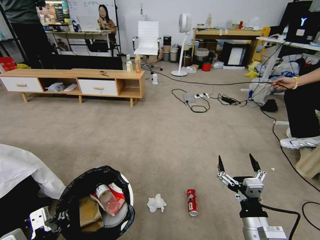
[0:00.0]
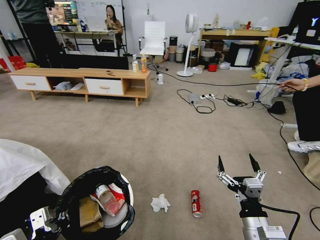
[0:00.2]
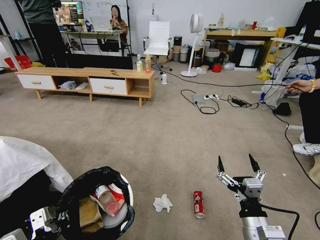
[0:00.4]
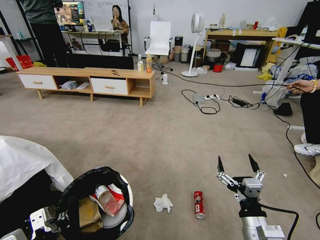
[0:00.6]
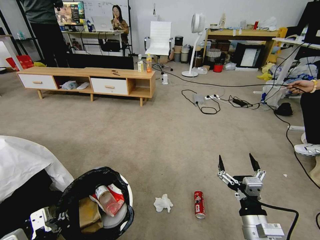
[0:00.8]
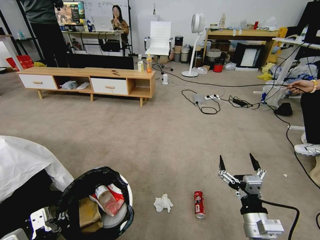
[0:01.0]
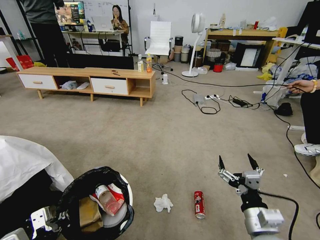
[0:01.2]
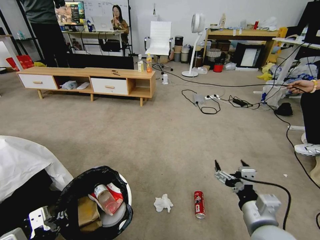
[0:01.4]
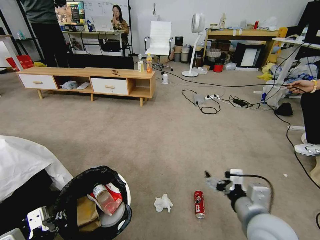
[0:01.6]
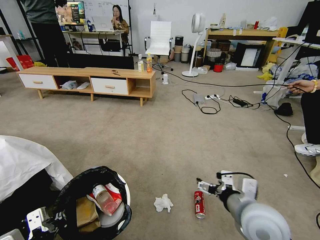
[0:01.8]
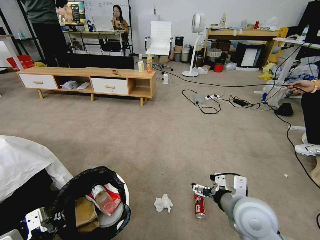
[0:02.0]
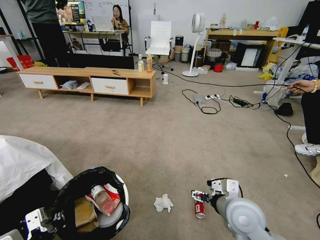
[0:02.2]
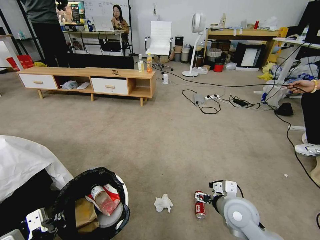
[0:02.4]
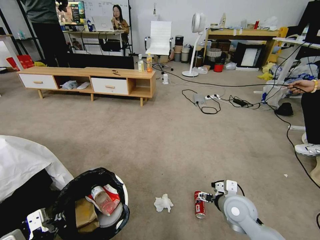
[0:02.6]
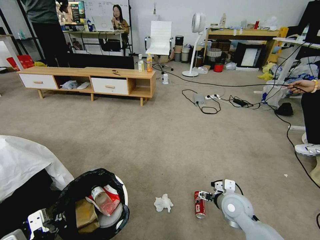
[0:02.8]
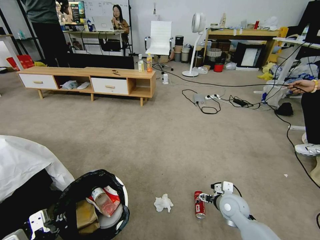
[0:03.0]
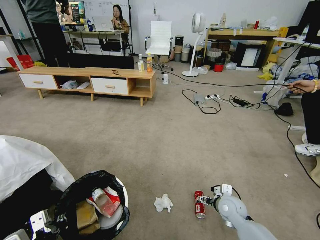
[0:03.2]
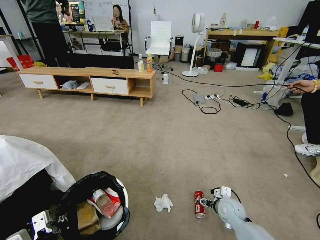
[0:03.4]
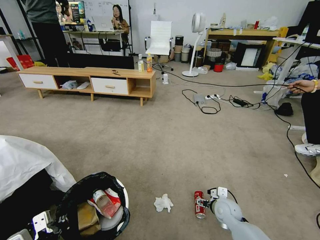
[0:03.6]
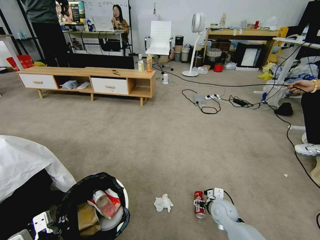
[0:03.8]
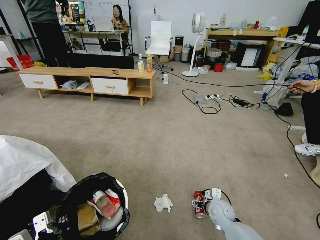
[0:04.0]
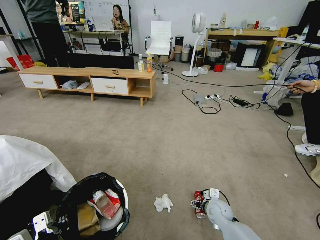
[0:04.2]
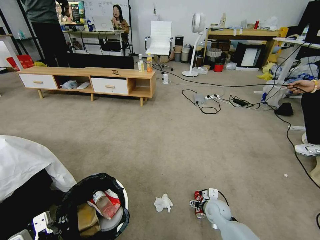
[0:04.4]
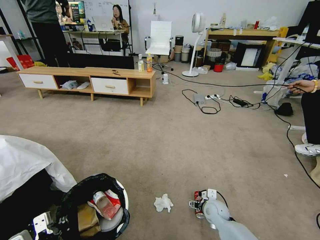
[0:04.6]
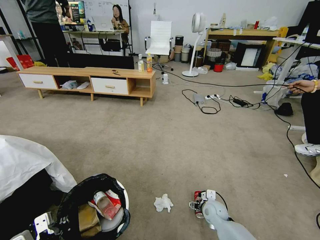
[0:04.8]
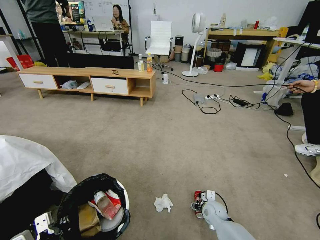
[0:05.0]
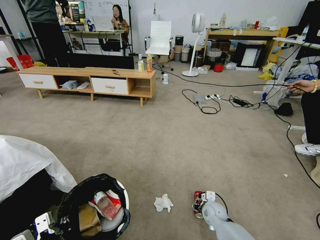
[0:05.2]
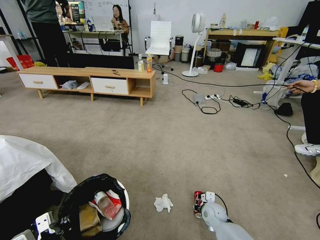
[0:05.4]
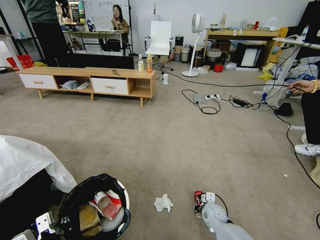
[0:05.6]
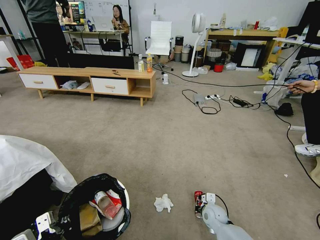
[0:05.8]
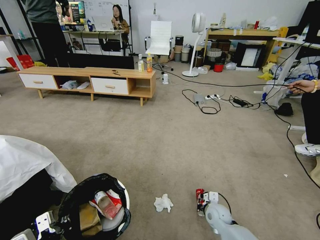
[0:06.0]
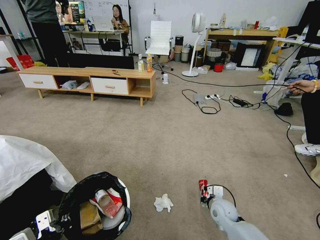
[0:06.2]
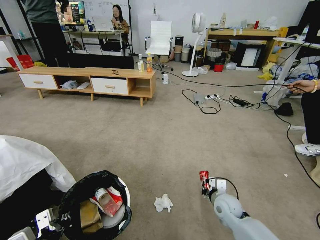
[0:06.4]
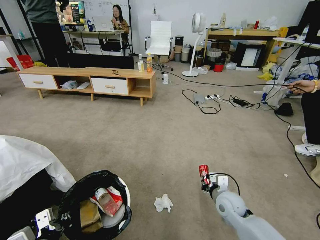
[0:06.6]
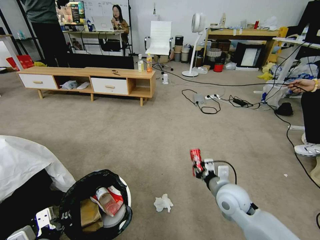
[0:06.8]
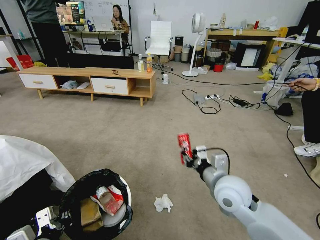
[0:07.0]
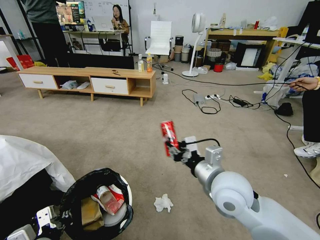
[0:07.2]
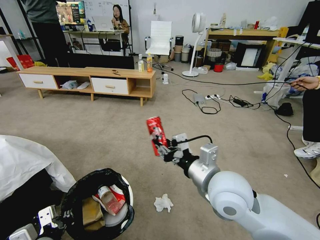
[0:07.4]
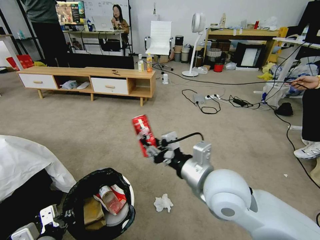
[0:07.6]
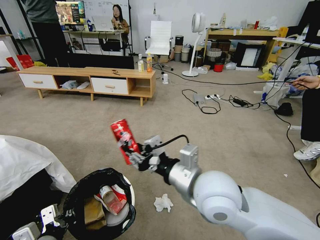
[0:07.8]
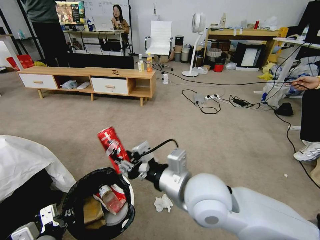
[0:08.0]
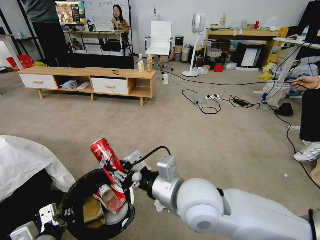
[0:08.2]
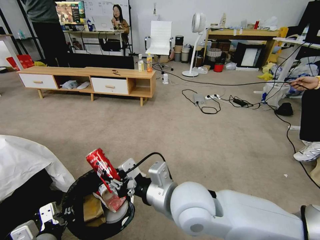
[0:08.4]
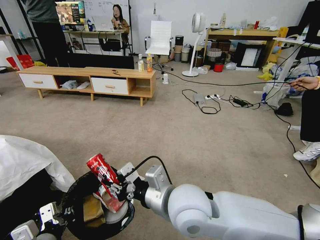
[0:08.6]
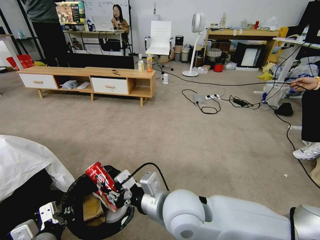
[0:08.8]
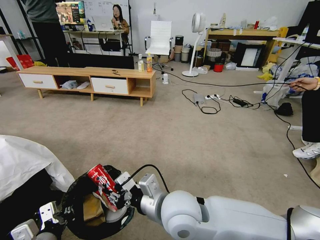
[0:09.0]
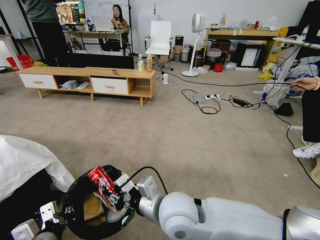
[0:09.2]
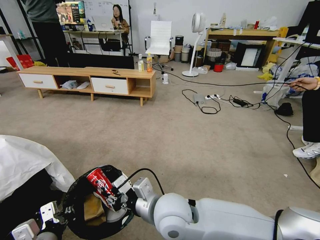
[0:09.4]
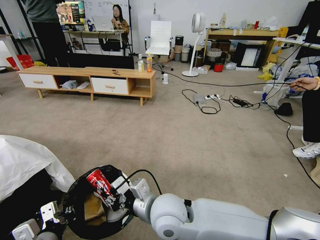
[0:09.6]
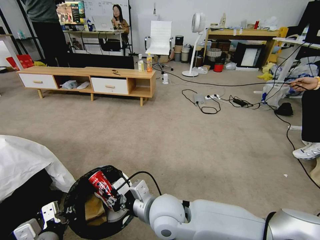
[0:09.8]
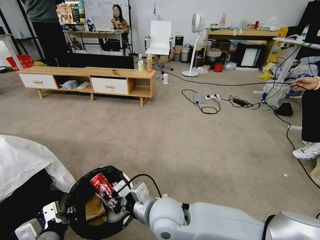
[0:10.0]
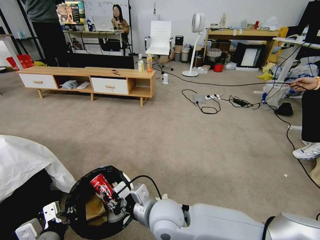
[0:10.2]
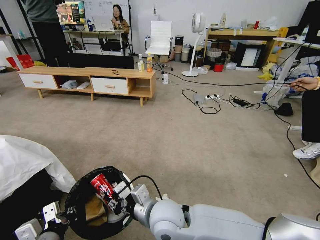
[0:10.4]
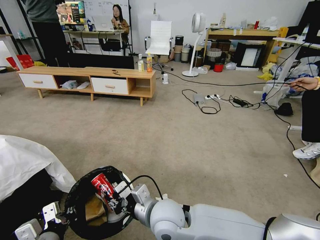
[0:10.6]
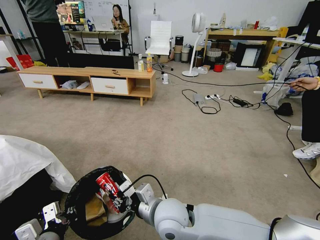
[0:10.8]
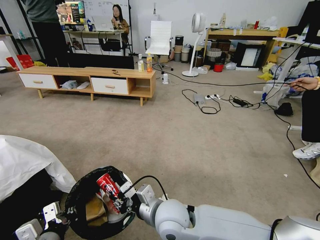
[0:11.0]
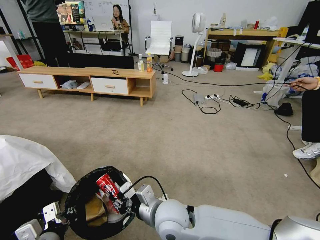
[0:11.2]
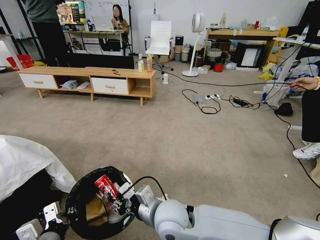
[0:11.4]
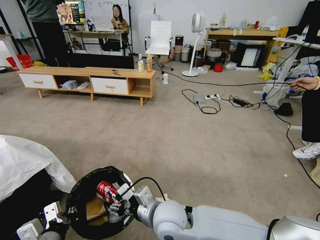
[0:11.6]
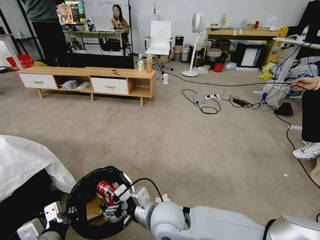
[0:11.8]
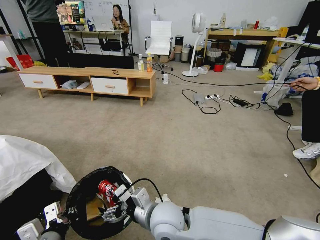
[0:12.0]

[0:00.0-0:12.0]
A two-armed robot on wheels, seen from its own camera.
Task of the whole recording: Pick up the trash bin and place the garbage on the floor into it.
0:00.0 to 0:01.6: The right gripper travels upward by about 10 cm.
0:01.6 to 0:03.0: The right gripper heads downward and forward, covering roughly 20 cm.
0:03.0 to 0:04.4: The right gripper travels downward by approximately 5 cm.
0:04.4 to 0:06.0: The right gripper closes up.
0:06.0 to 0:07.6: The right gripper shifts roughly 35 cm upward.
0:07.6 to 0:09.0: The right gripper travels to the left and downward by approximately 10 cm.
0:09.0 to 0:10.4: The right gripper is displaced downward by about 10 cm.
0:10.4 to 0:12.0: The right gripper opens its fingers.

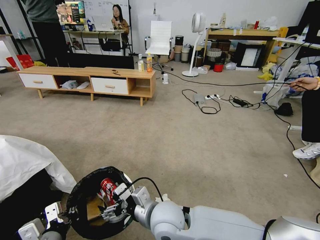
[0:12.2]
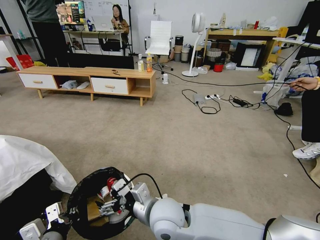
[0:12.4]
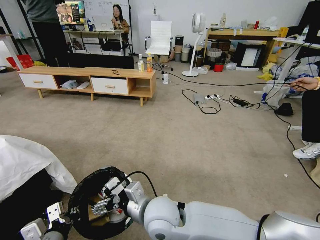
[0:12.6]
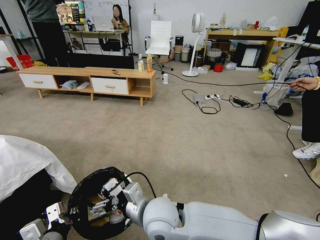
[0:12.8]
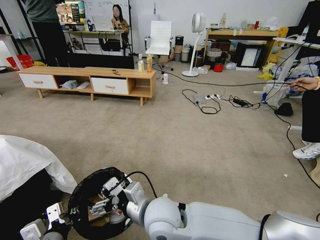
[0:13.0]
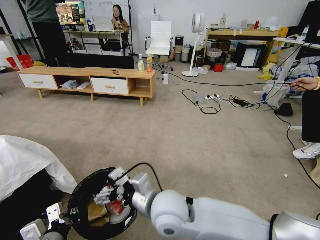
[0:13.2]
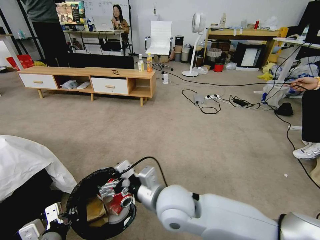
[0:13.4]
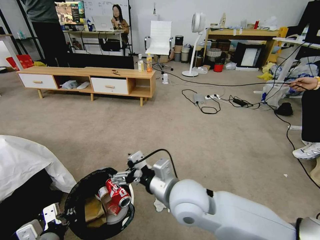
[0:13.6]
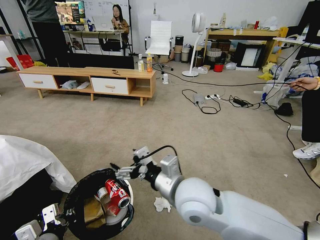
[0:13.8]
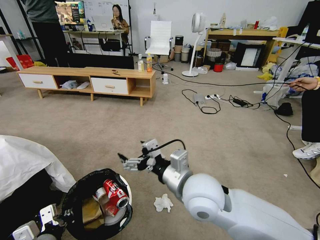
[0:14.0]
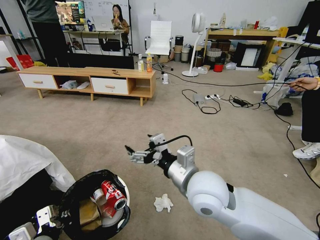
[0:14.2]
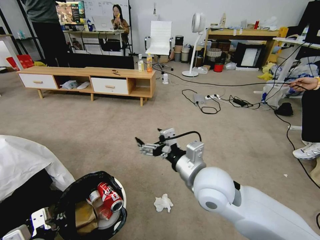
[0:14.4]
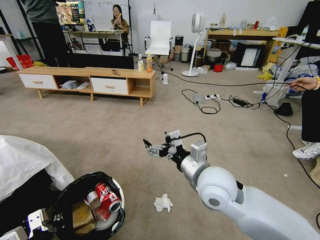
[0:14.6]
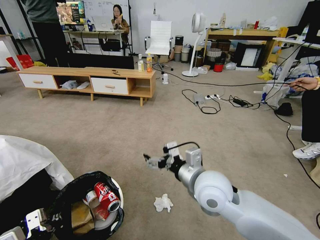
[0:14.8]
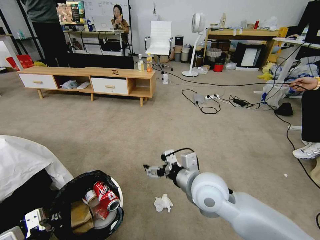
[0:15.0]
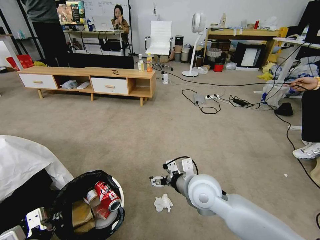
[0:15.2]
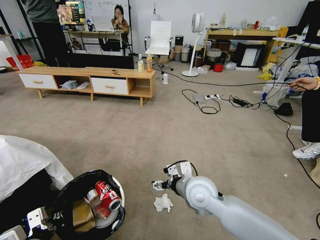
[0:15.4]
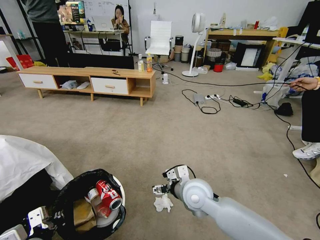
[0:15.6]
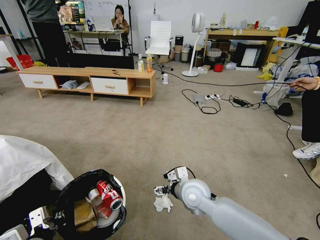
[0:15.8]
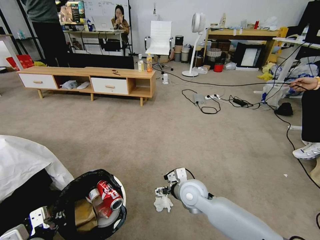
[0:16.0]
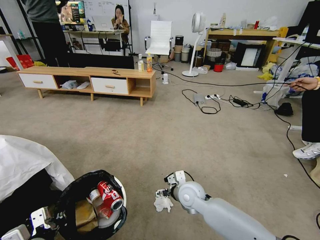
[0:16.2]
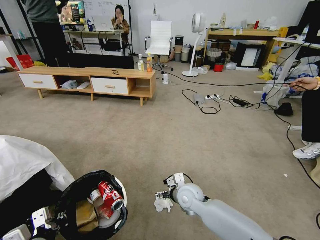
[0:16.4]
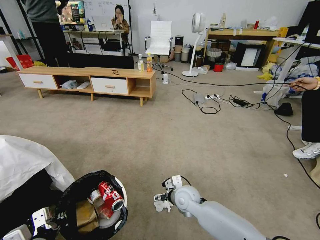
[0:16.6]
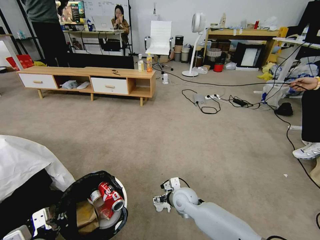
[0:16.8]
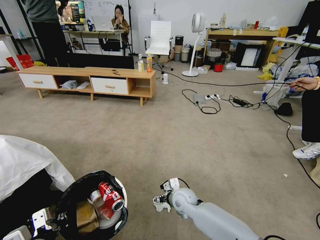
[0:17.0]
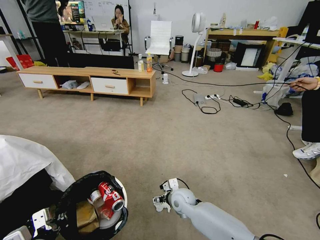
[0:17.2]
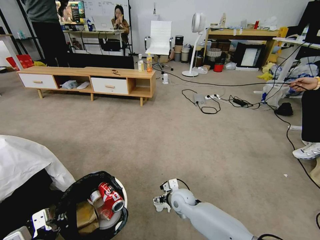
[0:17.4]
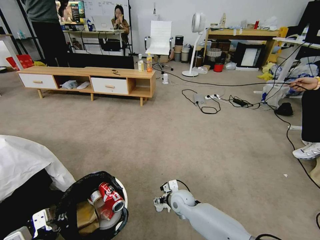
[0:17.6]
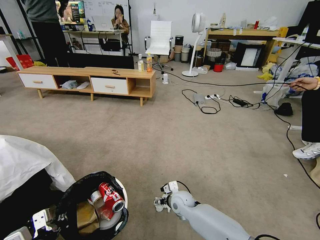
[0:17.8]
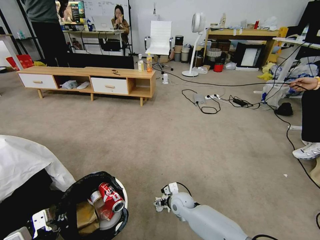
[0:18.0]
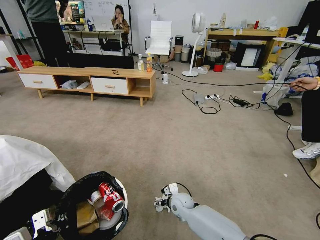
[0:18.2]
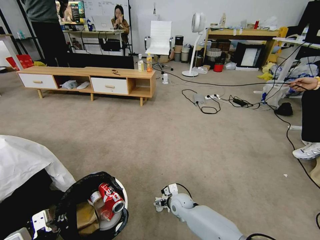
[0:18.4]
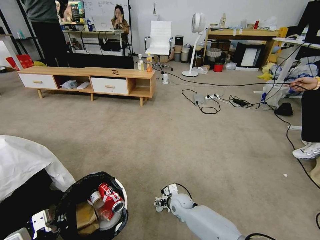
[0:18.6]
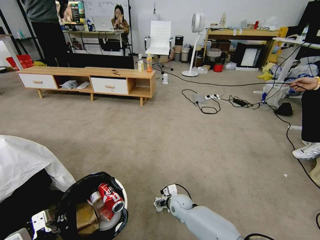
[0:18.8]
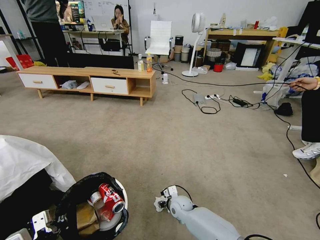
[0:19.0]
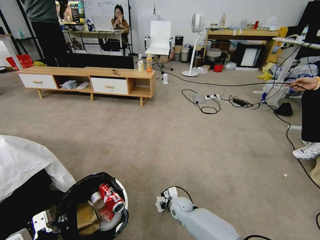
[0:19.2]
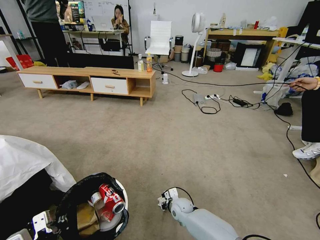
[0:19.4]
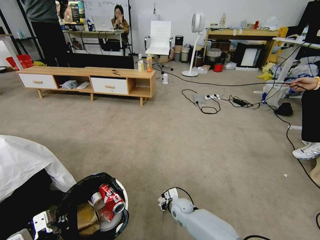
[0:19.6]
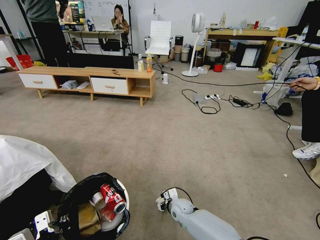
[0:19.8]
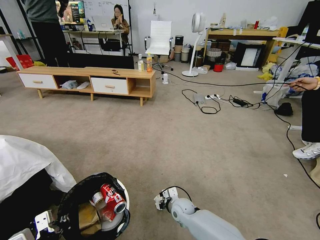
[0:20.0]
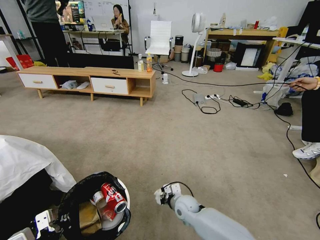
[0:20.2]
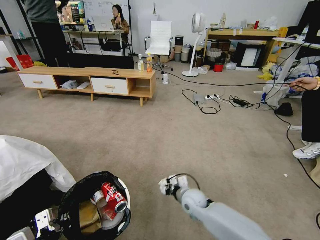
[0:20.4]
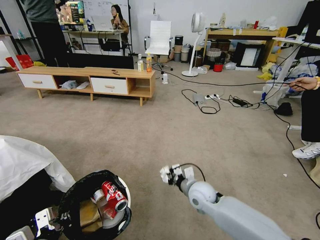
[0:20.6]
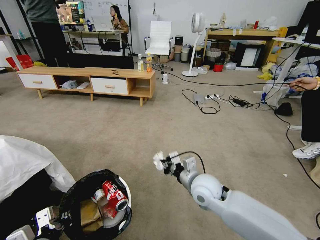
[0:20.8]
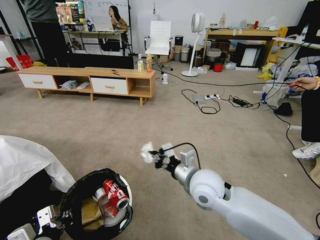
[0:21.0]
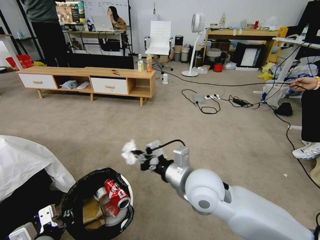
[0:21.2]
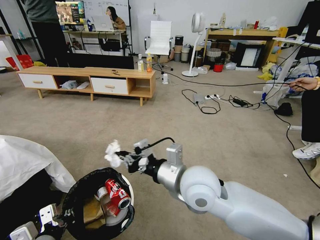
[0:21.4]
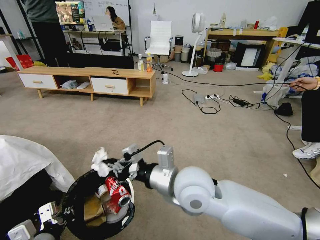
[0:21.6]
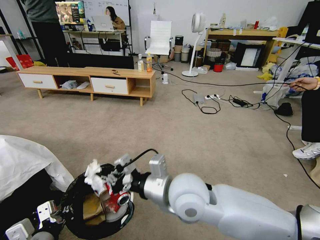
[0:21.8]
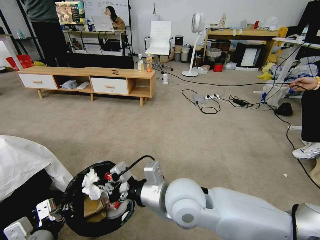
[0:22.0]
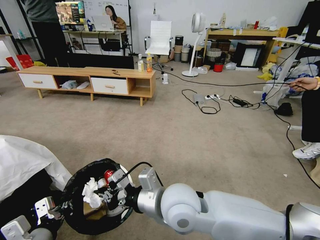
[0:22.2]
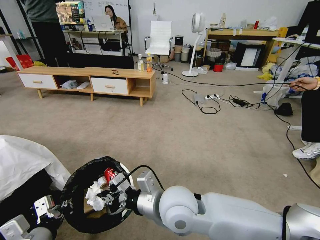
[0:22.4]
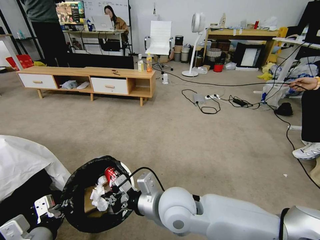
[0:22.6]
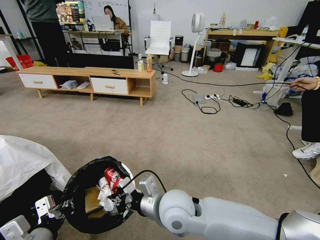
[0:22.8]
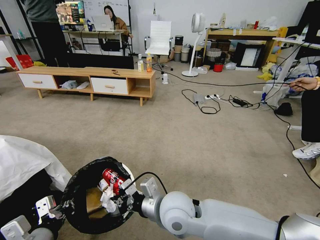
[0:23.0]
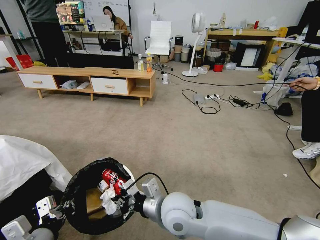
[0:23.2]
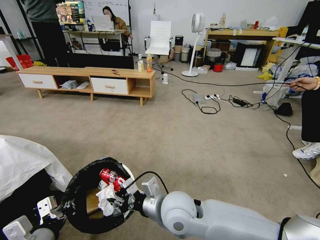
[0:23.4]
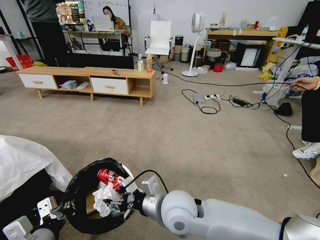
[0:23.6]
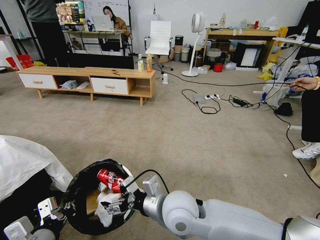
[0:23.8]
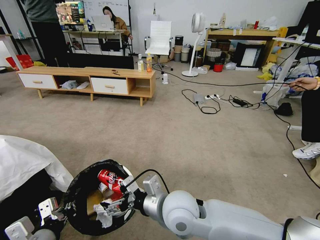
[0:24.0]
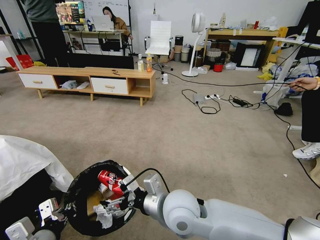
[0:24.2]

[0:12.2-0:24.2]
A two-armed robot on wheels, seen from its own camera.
Task of the whole recording: Pick up the trash bin and place the garbage on the floor into it.
0:12.2 to 0:13.8: The right gripper shifts roughly 10 cm upward and to the right.
0:13.8 to 0:15.2: The right gripper is displaced downward and forward by some 5 cm.
0:15.2 to 0:16.6: The right gripper moves downward, approximately 15 cm.
0:16.6 to 0:18.2: The right gripper travels downward by approximately 10 cm.
0:18.2 to 0:19.8: The right gripper closes.
0:19.8 to 0:21.2: The right gripper travels upward by roughly 35 cm.
0:21.2 to 0:22.6: The right gripper moves to the left, roughly 5 cm.
0:22.6 to 0:24.2: The right gripper opens its fingers.
